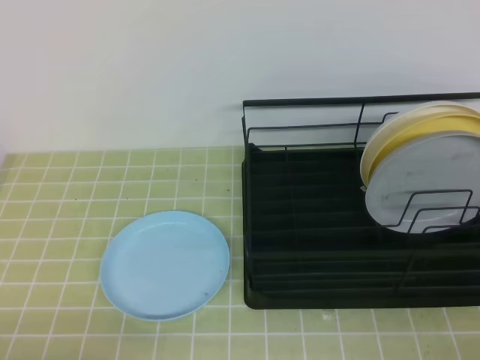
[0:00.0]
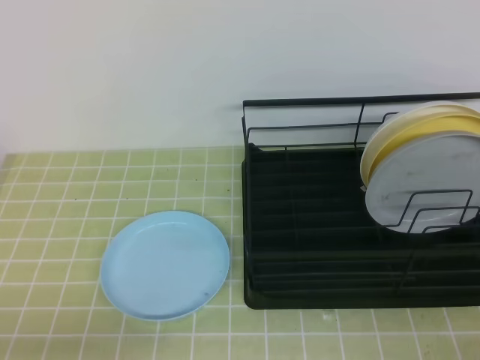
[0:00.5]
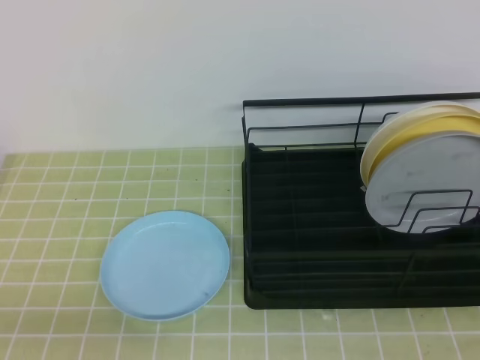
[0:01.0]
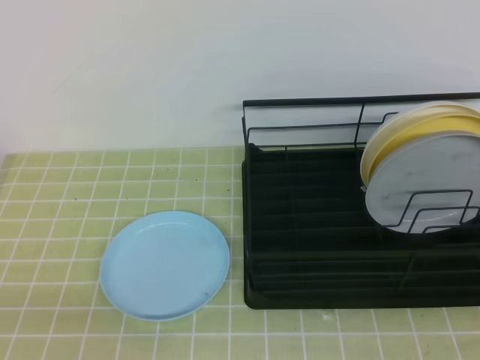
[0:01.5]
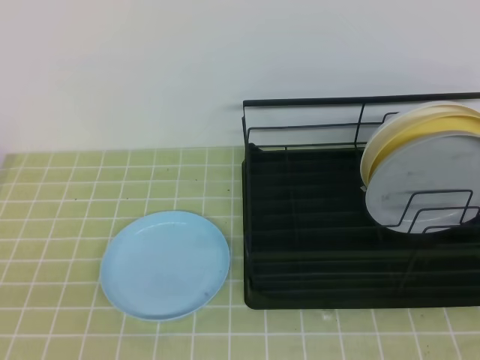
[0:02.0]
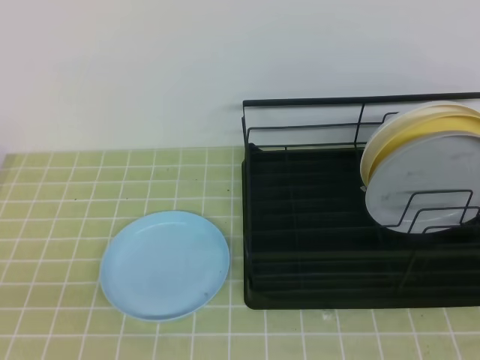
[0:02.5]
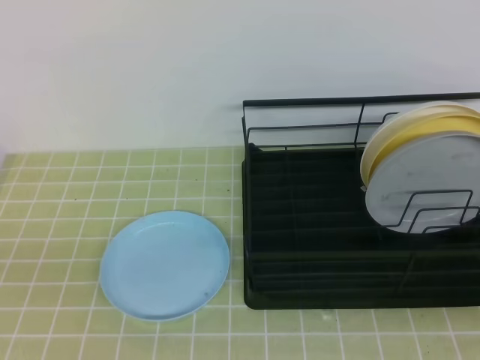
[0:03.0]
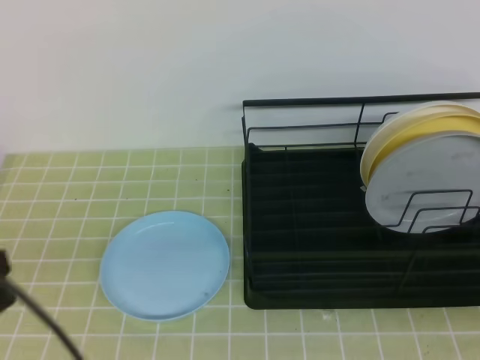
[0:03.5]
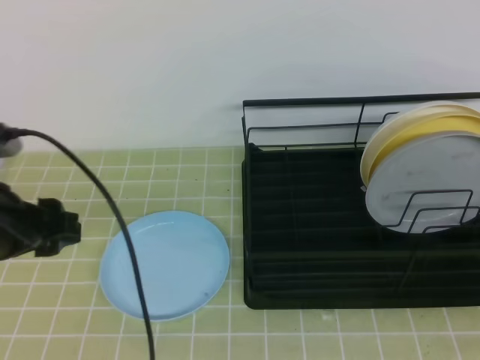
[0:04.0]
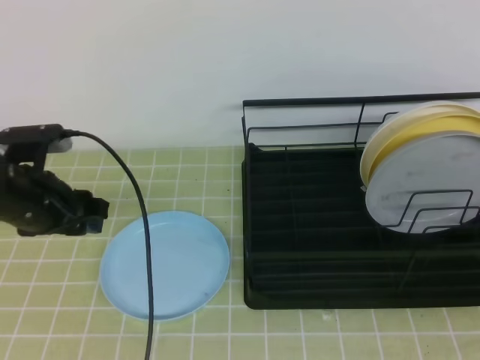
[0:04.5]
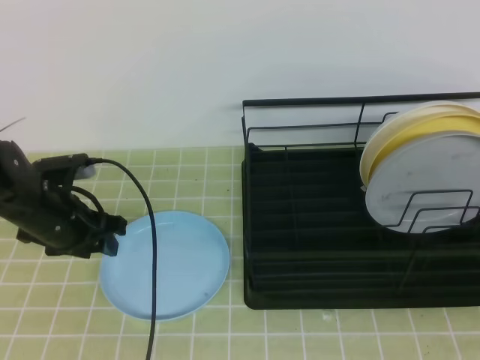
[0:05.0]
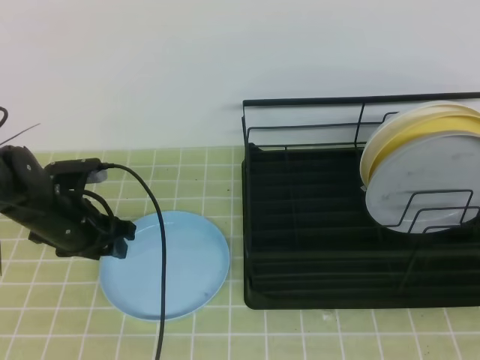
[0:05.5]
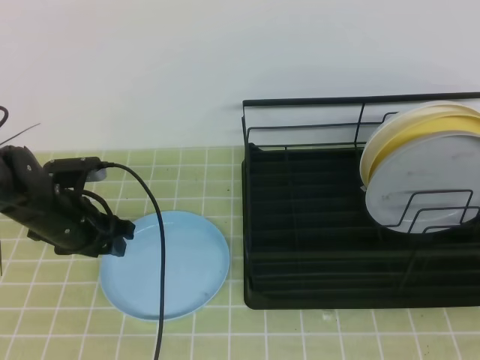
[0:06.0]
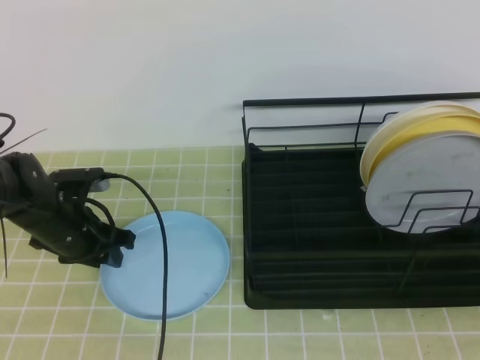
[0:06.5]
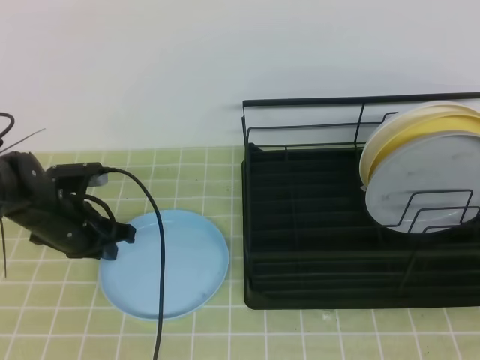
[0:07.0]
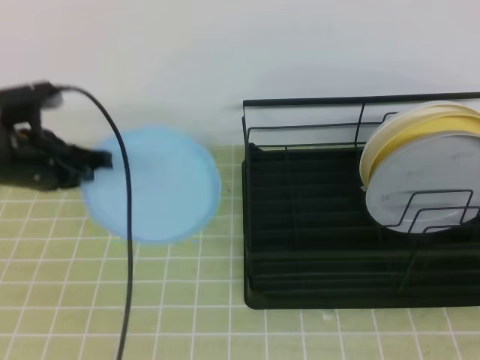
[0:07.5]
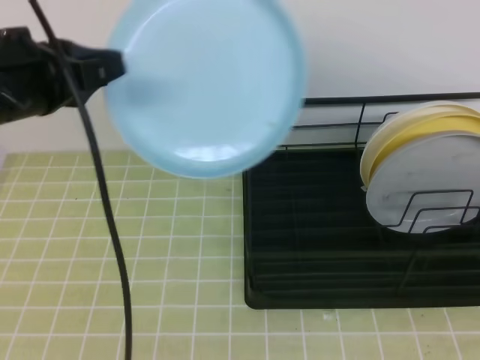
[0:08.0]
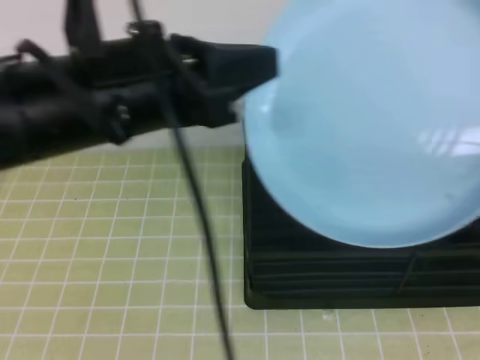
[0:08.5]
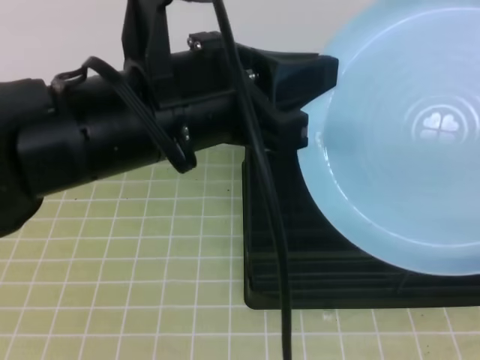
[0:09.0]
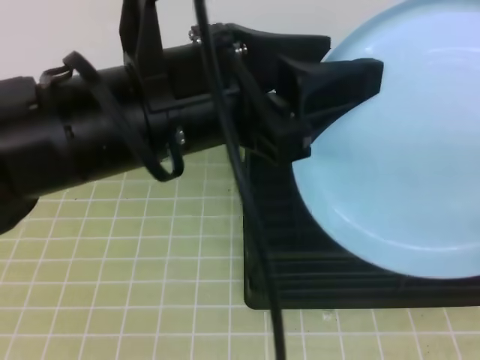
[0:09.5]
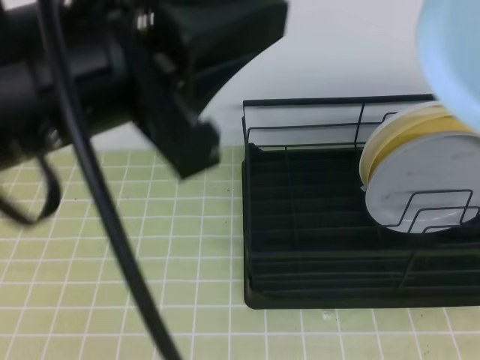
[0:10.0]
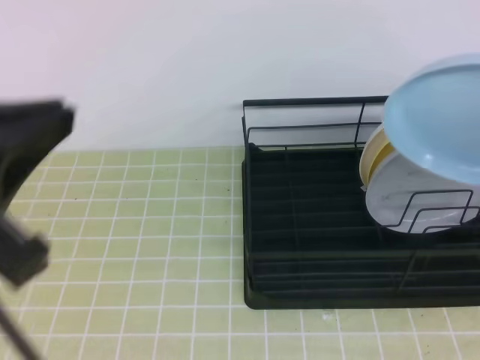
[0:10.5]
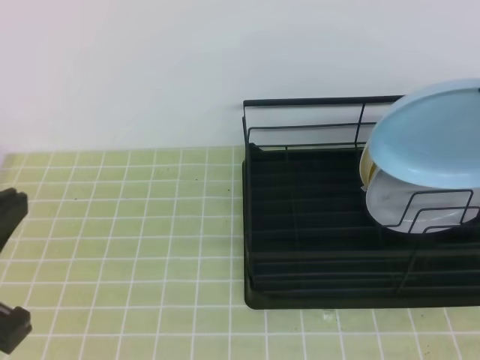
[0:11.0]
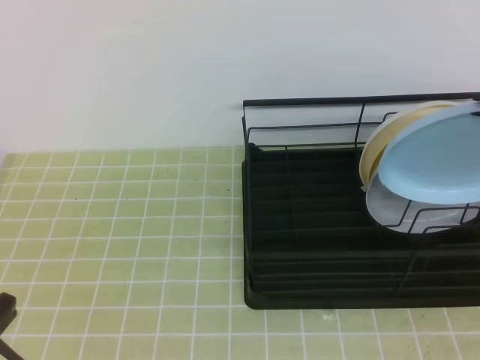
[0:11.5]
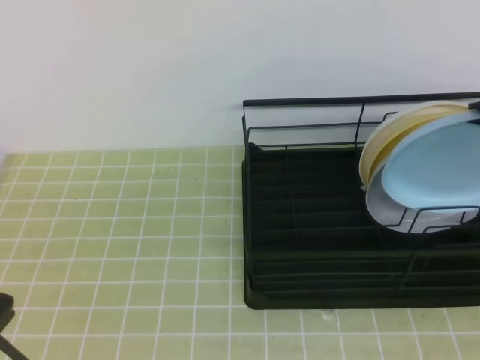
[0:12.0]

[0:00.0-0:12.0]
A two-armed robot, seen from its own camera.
0:02.0 to 0:04.0: The left gripper moves forward, approximately 20 cm, and opens up.
0:04.0 to 0:06.0: The left gripper goes some 20 cm forward and downward.
0:06.0 to 0:08.0: The left gripper goes roughly 25 cm upward and backward, and closes, while the right gripper is displaced upward by roughly 5 cm.
0:08.0 to 0:10.0: The right gripper shifts some 10 cm upward, and opens, then closes once more. The left gripper moves backward, to the right and upward, some 15 cm, and opens its fingers.
0:10.0 to 0:12.0: The left gripper goes some 15 cm to the left, downward and backward, and closes, while the right gripper goes approximately 20 cm forward and downward.

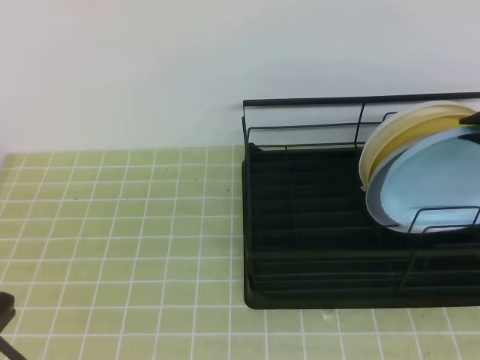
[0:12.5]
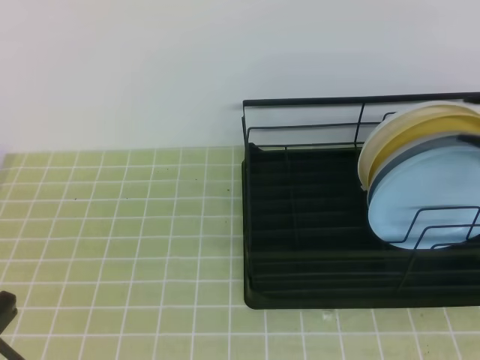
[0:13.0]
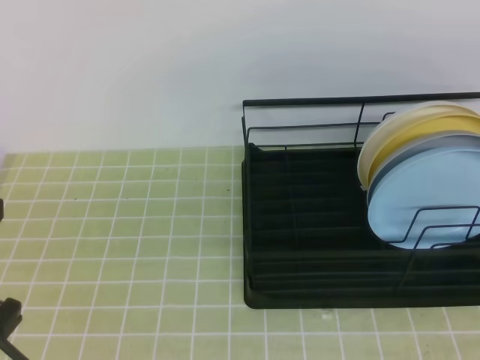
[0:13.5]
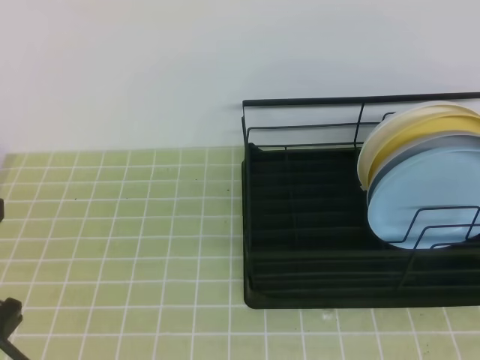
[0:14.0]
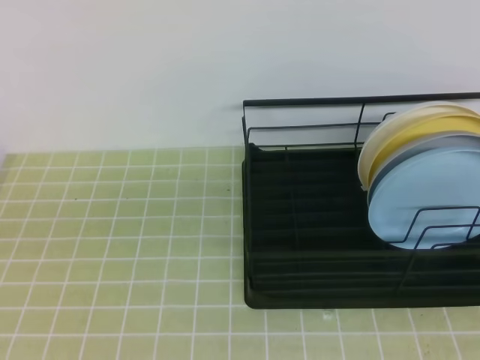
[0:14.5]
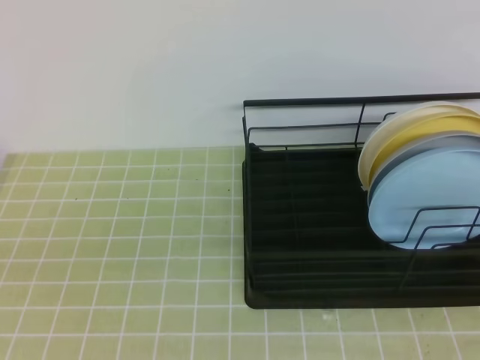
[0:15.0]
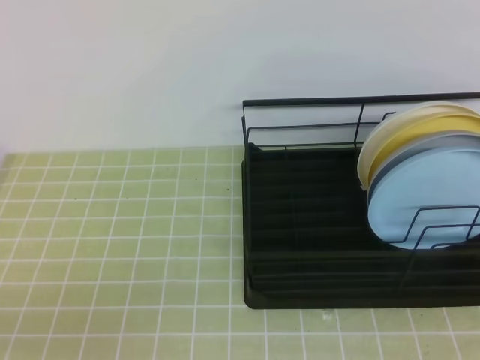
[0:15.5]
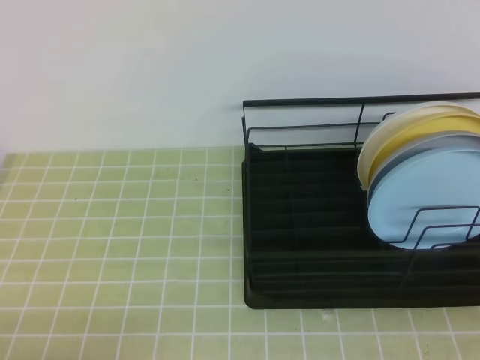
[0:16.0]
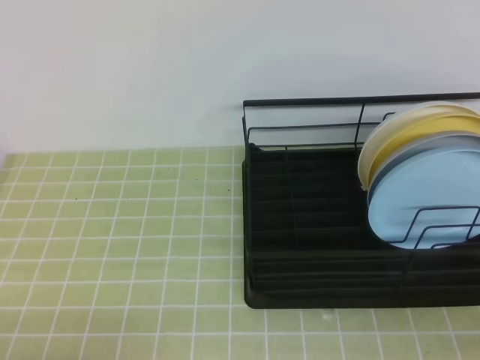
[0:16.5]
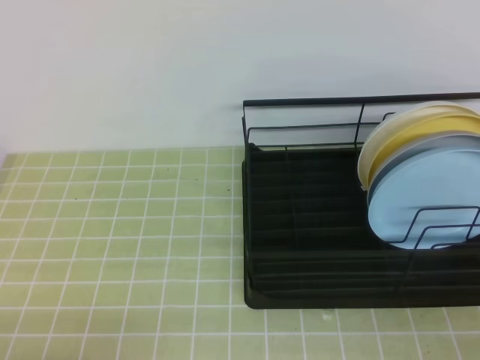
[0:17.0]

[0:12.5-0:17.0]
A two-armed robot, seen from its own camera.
0:12.5 to 0:14.5: The right gripper shifts roughly 20 cm backward, and closes.
